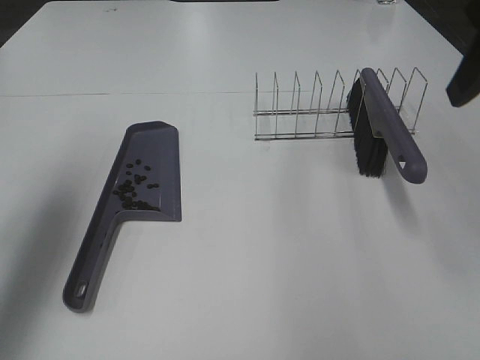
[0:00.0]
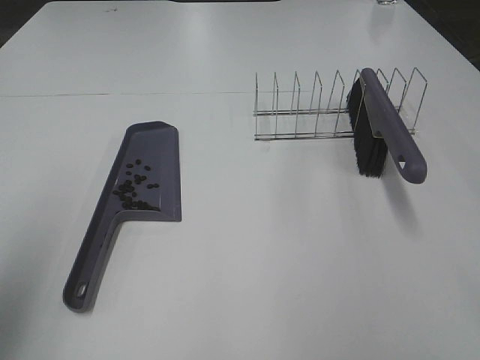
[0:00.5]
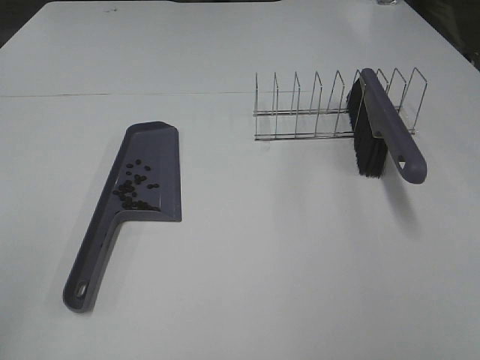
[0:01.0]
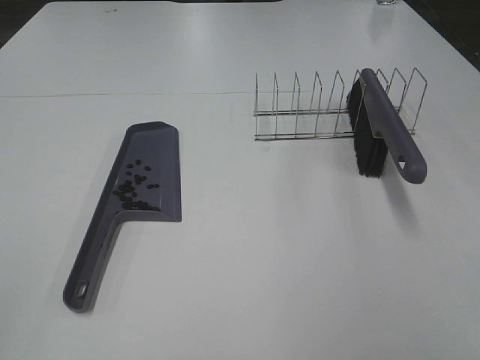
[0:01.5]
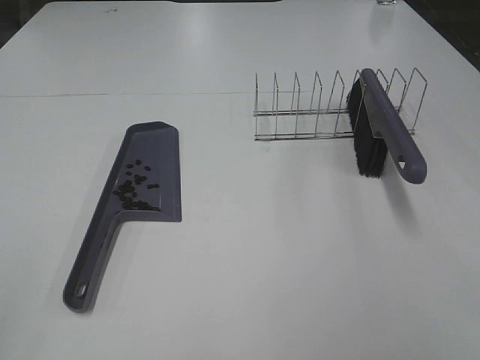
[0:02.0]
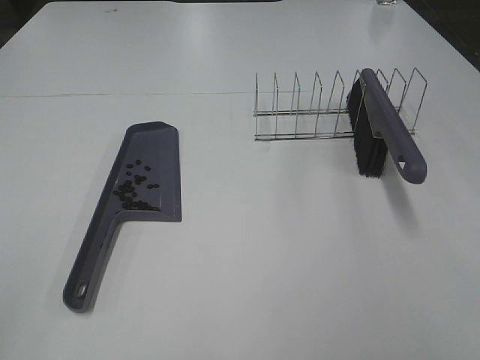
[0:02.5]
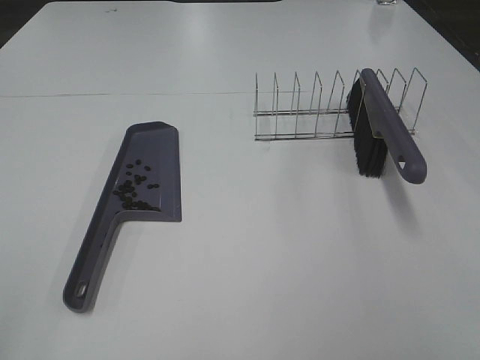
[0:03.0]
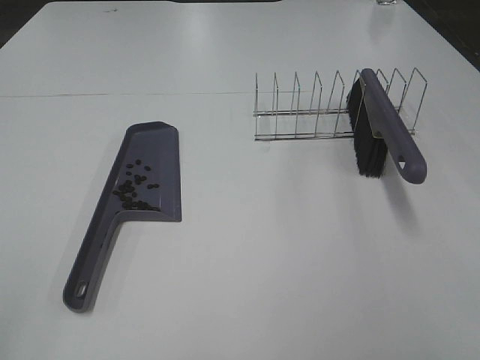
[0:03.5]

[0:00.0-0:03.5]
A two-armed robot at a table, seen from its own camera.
Task of the whole recording: Sweep Coffee Bean.
0:00.0 to 0:02.0: Both grippers move backward, approximately 25 cm.

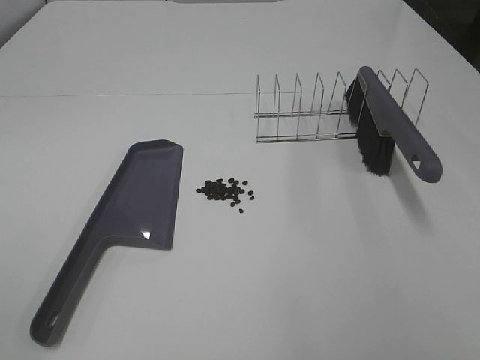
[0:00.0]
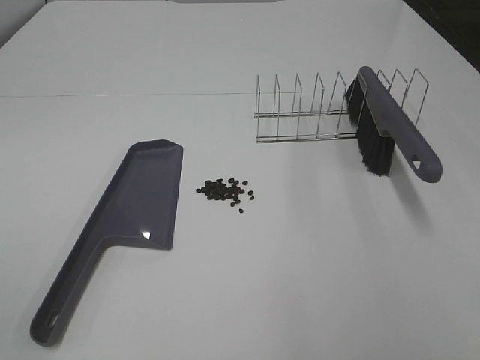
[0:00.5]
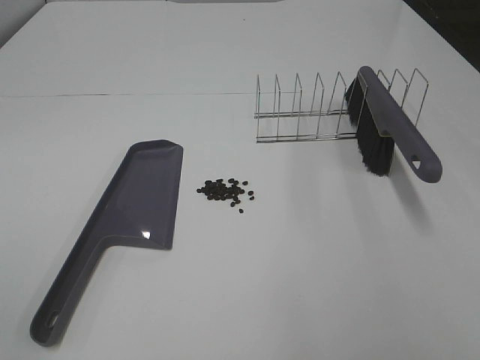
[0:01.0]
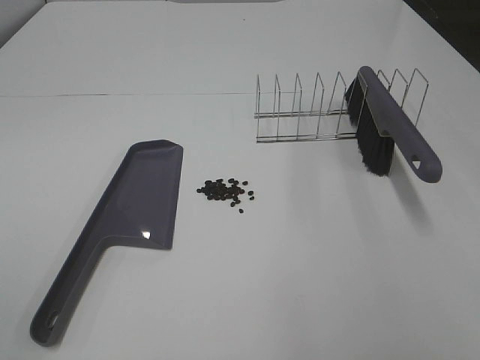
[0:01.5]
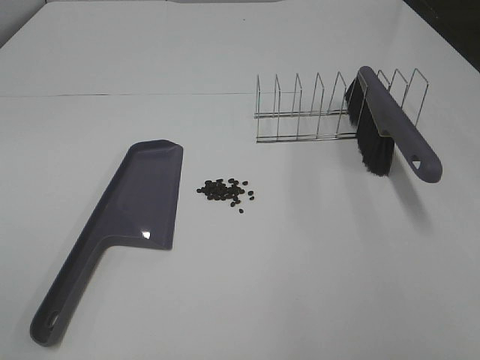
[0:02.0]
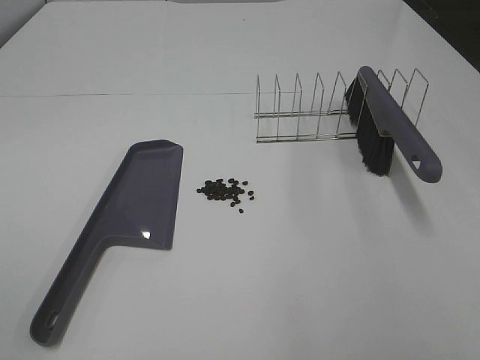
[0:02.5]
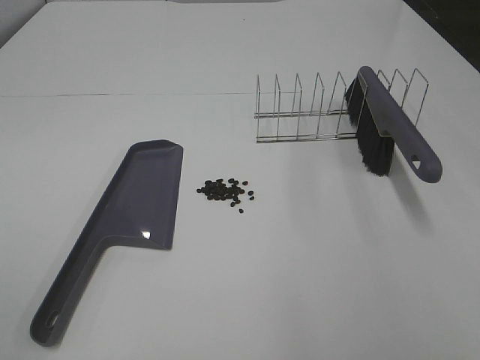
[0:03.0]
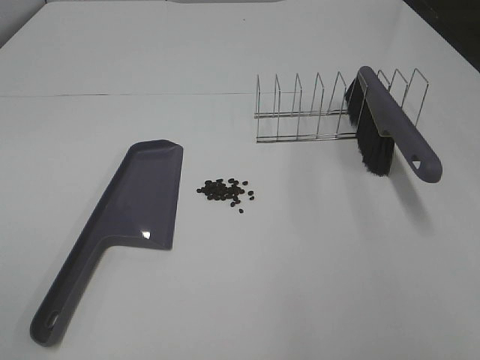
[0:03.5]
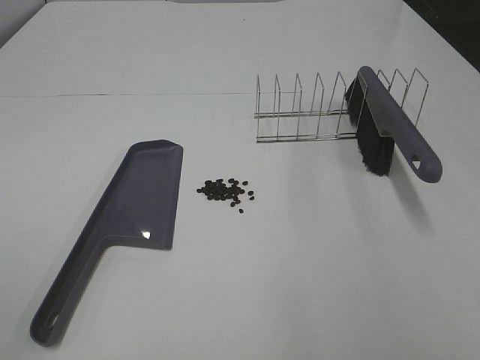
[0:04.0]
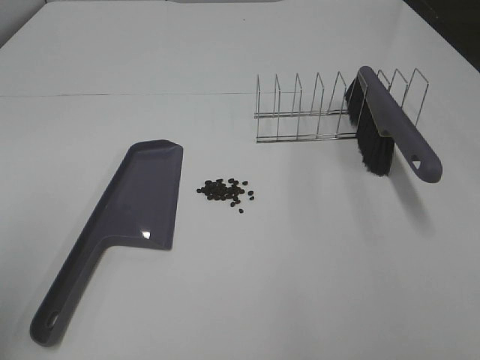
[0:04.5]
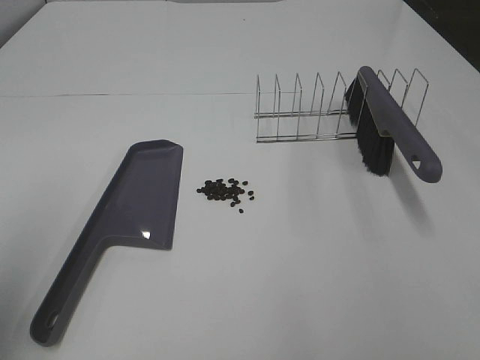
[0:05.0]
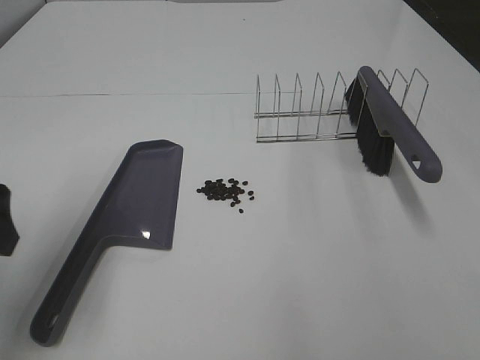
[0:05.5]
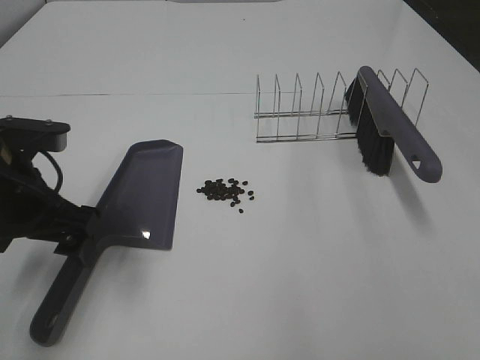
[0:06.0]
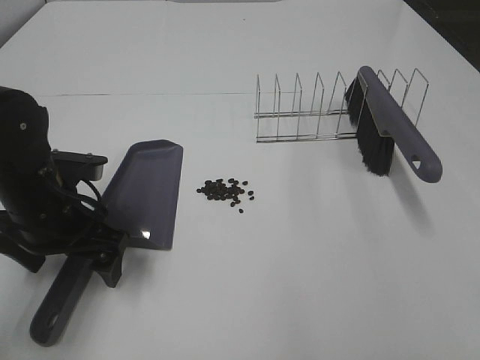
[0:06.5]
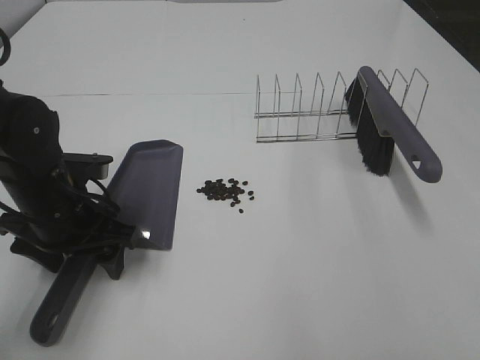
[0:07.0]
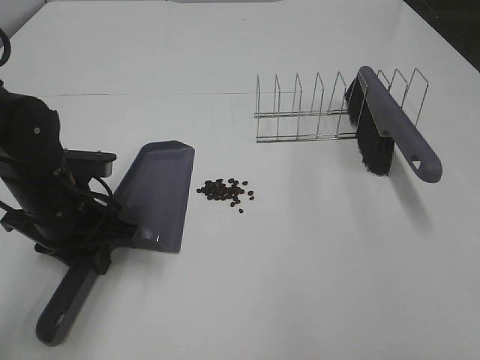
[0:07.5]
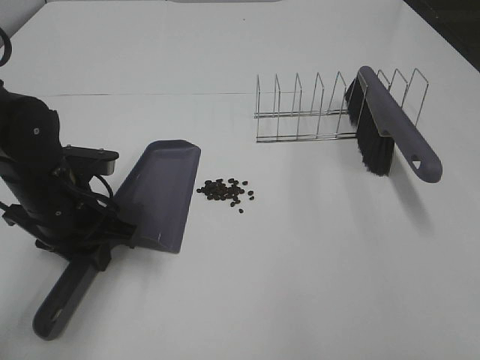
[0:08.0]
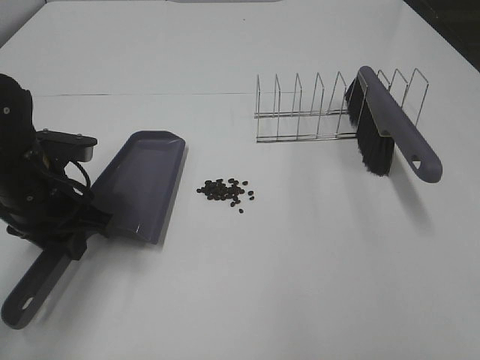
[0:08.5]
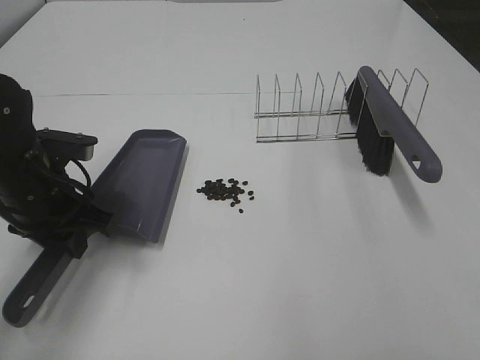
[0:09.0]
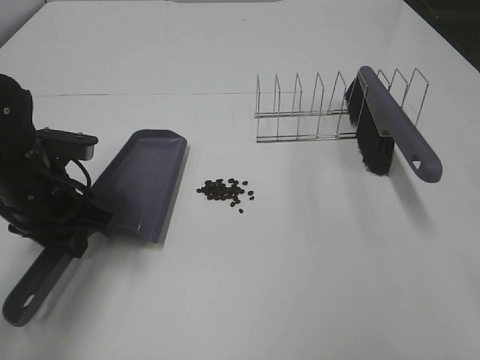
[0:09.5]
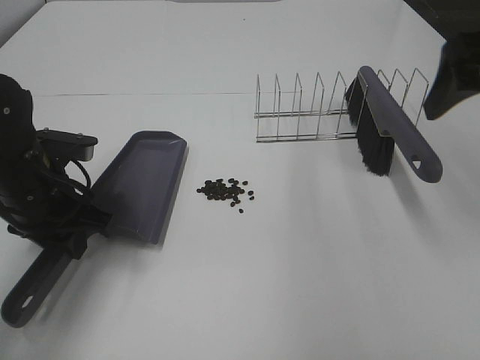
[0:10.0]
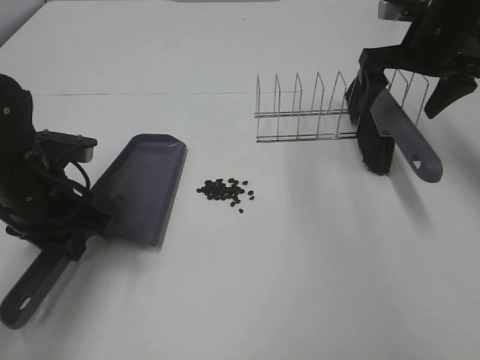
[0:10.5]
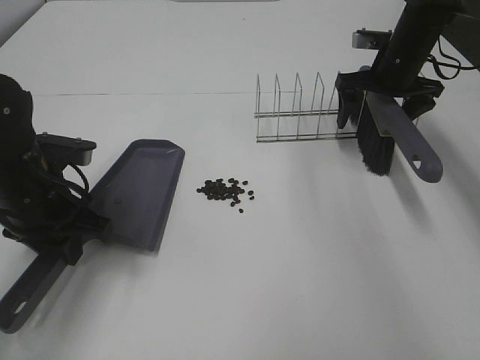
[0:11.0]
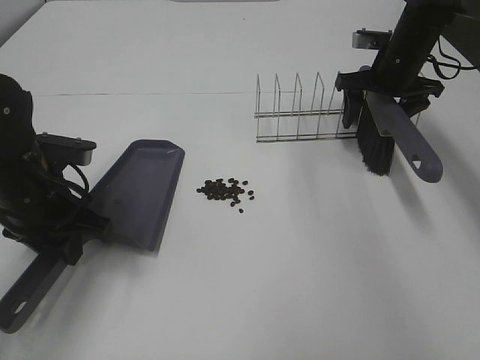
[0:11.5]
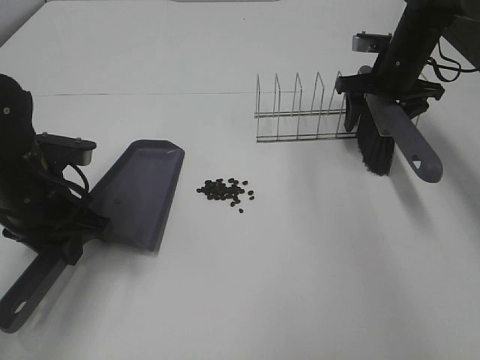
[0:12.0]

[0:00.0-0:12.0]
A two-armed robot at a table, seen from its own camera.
Task of the whole recording: Sweep Coffee Bean.
Step, 0:00.0 to 0:07.0: Left hand: grab the dustpan.
0:00.0 to 0:04.0: Both grippers stay put.
0:04.0 to 0:06.0: The left gripper moves forward, downward and to the right, about 30 cm.
0:06.0 to 0:08.0: The left gripper travels downward by about 5 cm, and closes its fingers.
0:08.0 to 0:10.0: The right gripper is displaced forward by about 30 cm, and opens its fingers.
0:10.0 to 0:12.0: The right gripper moves forward and downward, about 25 cm, and closes its fingers.

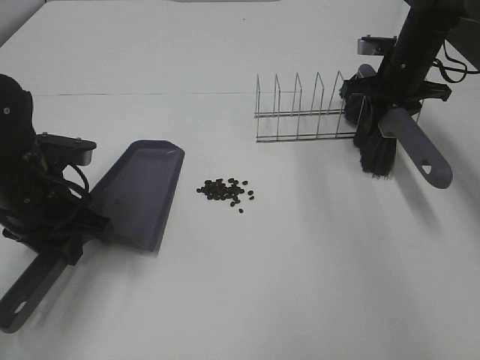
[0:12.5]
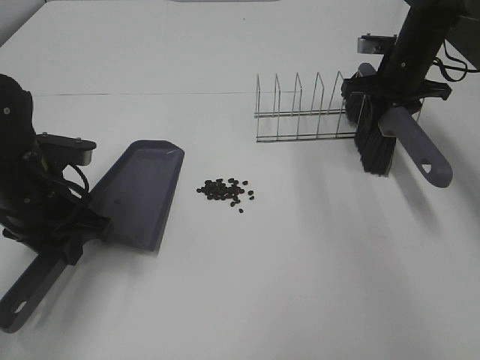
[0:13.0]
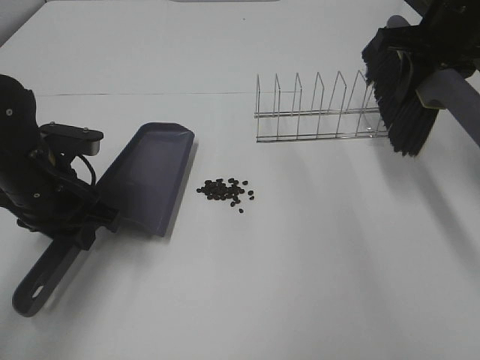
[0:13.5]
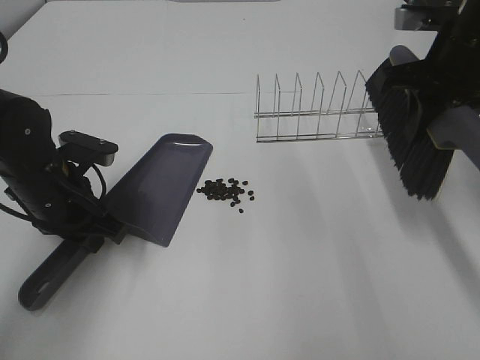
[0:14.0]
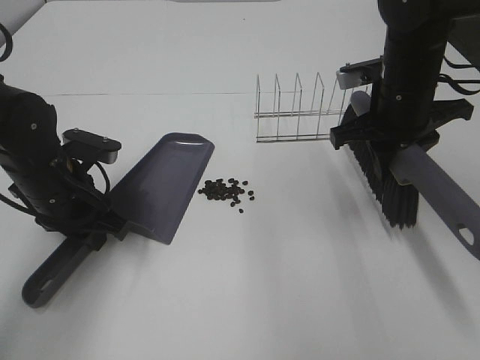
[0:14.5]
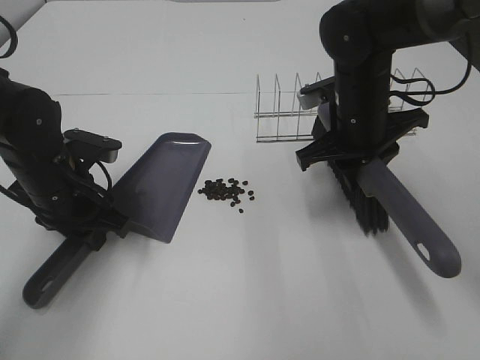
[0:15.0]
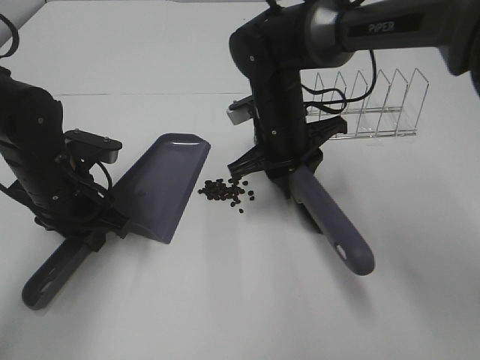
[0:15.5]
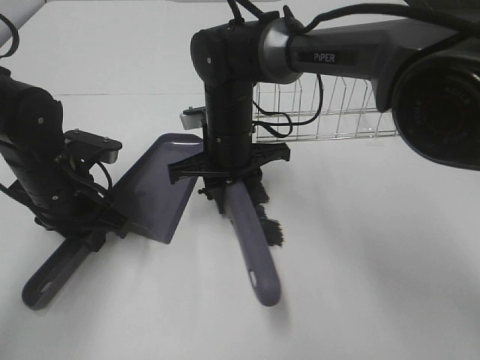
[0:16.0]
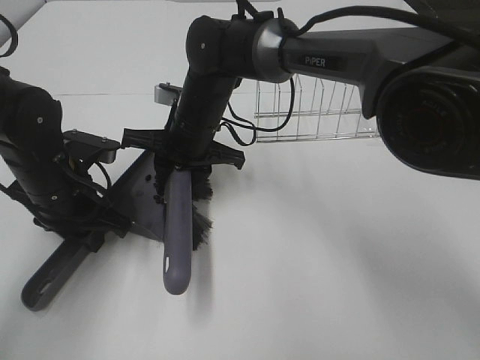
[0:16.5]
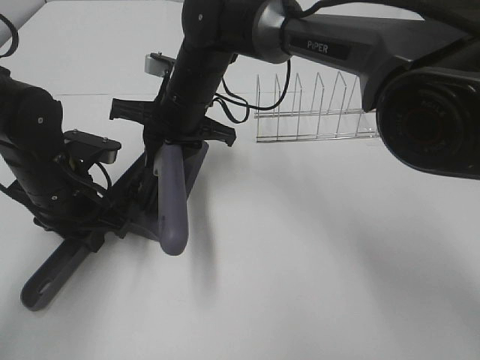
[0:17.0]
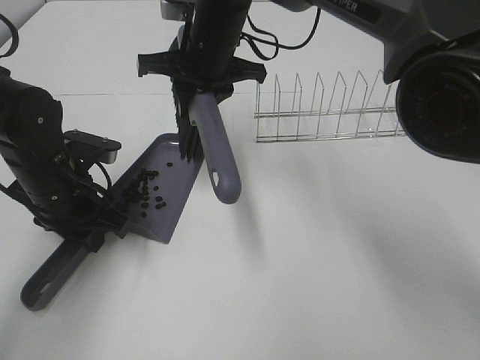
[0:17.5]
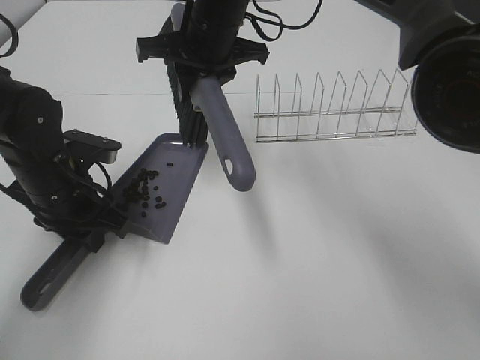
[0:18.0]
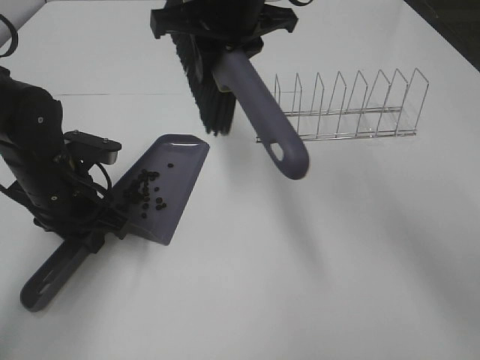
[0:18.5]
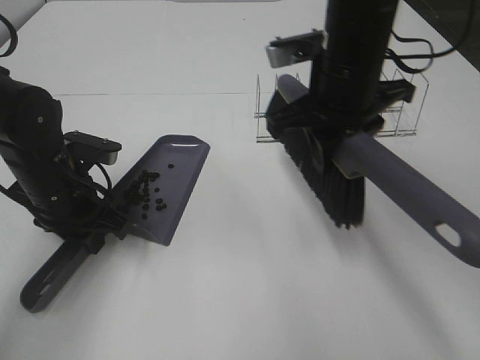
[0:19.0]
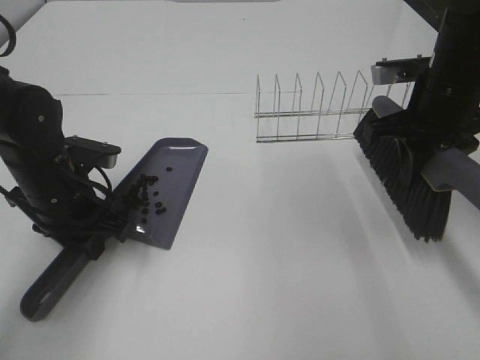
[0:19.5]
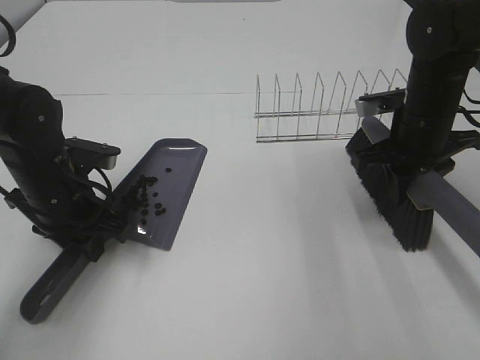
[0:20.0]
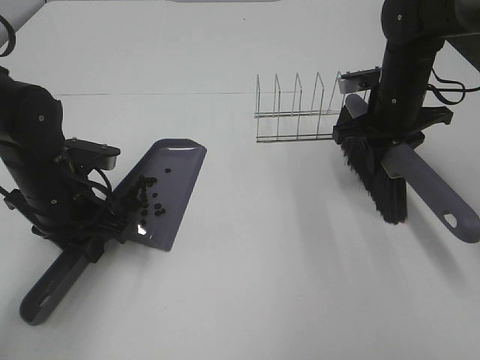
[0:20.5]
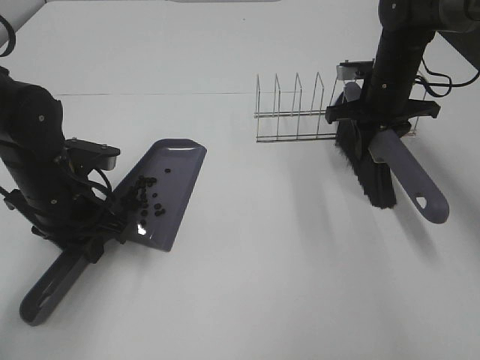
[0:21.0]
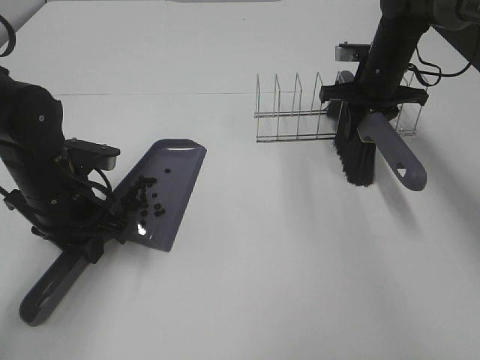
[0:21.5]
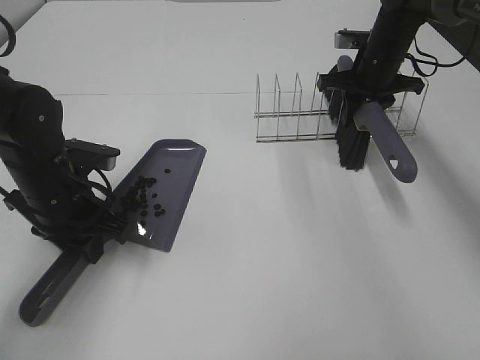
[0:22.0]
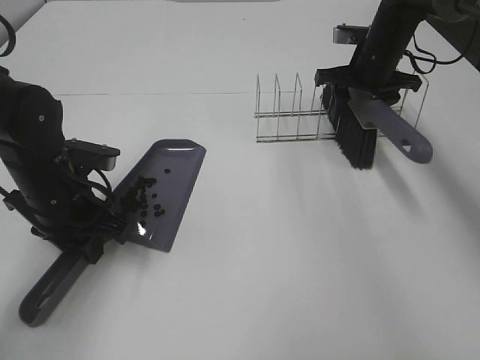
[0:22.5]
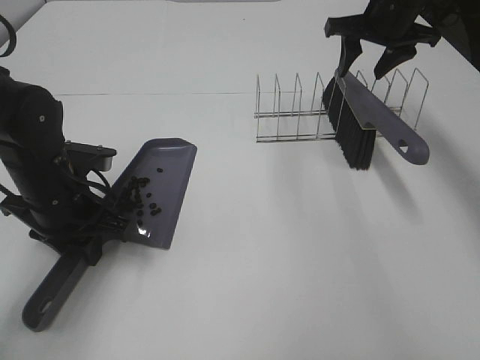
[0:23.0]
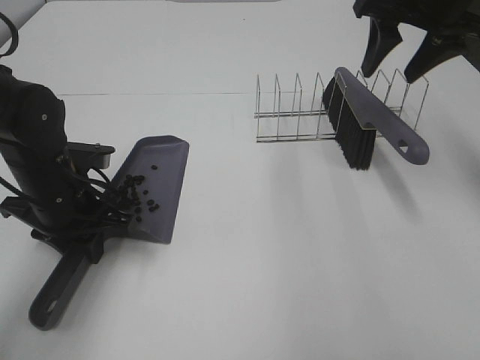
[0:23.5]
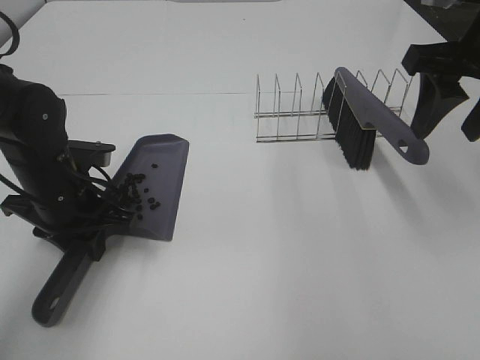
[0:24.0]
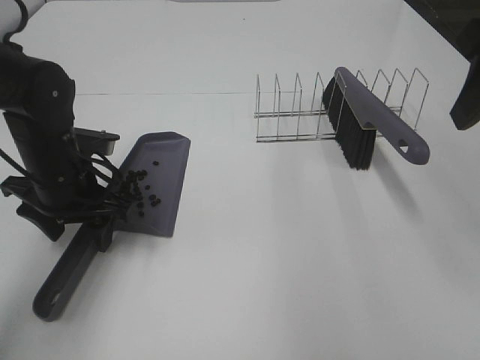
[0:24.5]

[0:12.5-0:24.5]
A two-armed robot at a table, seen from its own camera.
Task of the whole recording: Sweep Coffee Bean.
Step, 0:12.5 to 0:17.0: Right hand:sweep the coffee beans into the dustpan.
Step, 0:17.5 to 0:22.5: Right hand:place the broom on the rack.
0:12.5 to 0:14.5: The right gripper travels backward and to the left by roughly 15 cm.
0:14.5 to 0:16.5: The right gripper moves to the left, roughly 25 cm.
0:16.5 to 0:18.5: The right gripper shifts roughly 15 cm upward.
0:18.5 to 0:20.5: The right gripper goes approximately 25 cm to the right and downward.
0:20.5 to 0:22.5: The right gripper heads forward, covering roughly 10 cm, and opens up.
0:22.5 to 0:24.5: The left gripper opens up. The right gripper moves backward and upward, about 30 cm.
